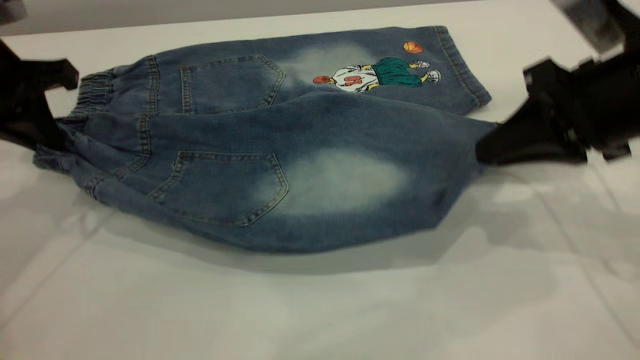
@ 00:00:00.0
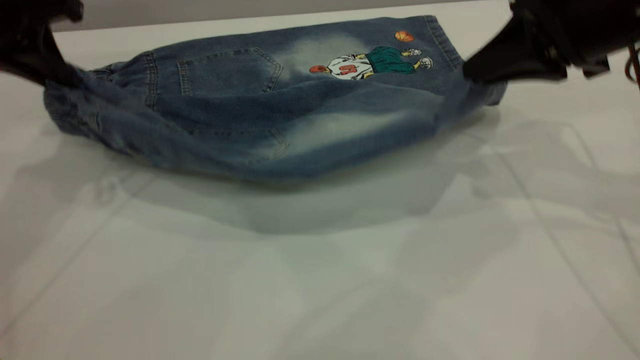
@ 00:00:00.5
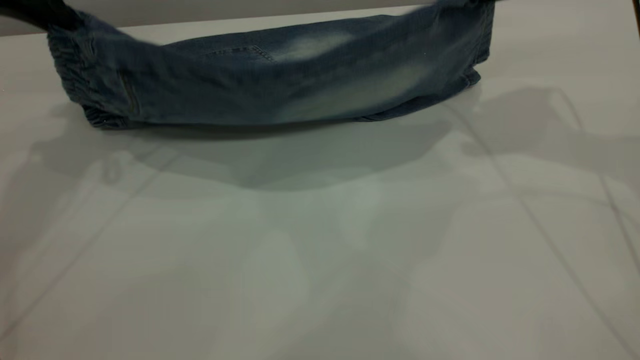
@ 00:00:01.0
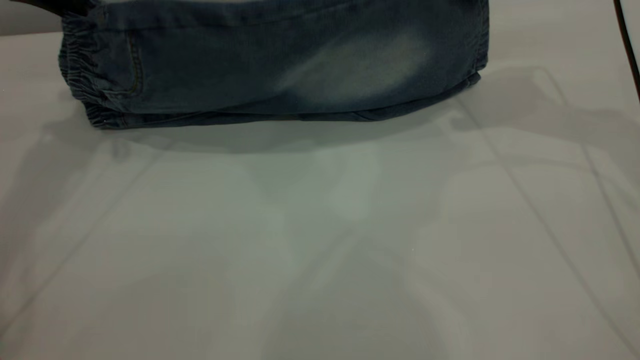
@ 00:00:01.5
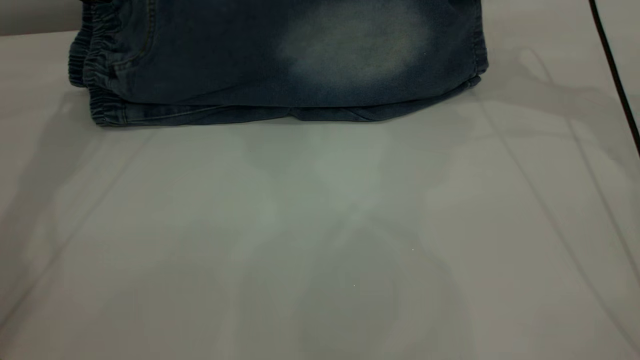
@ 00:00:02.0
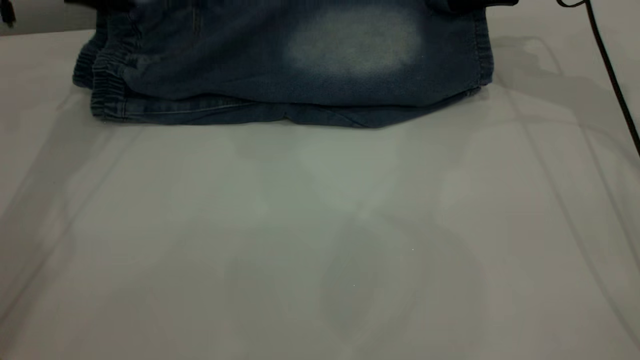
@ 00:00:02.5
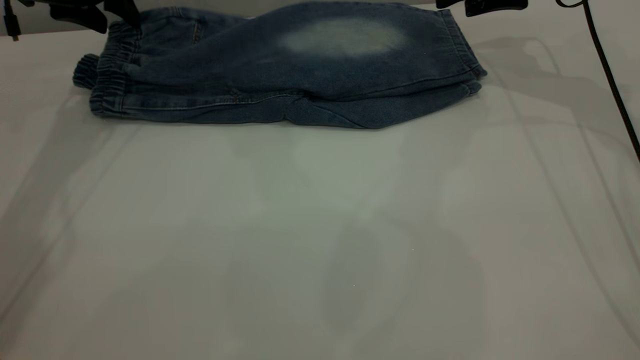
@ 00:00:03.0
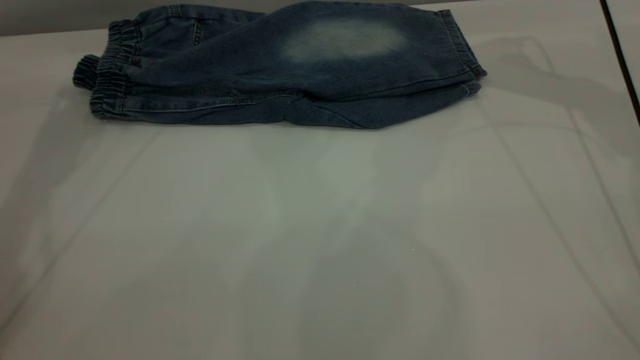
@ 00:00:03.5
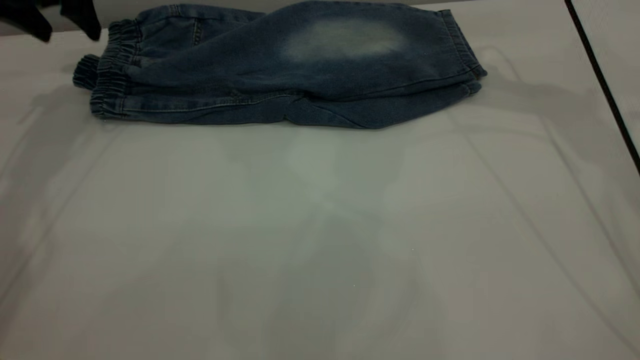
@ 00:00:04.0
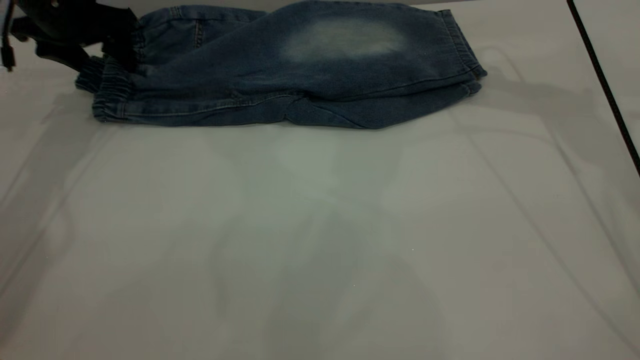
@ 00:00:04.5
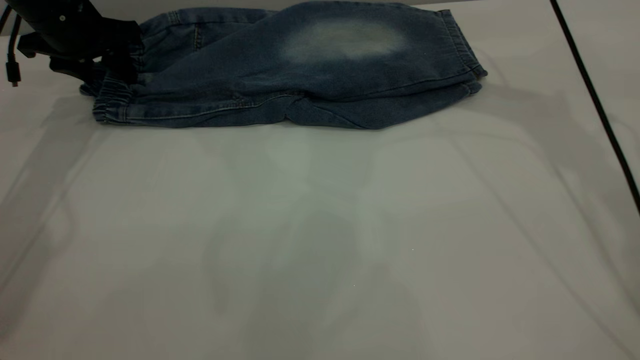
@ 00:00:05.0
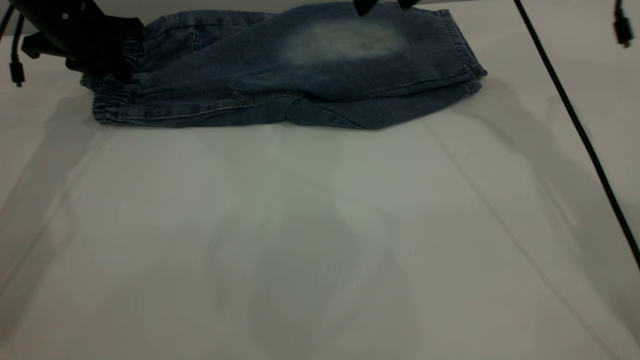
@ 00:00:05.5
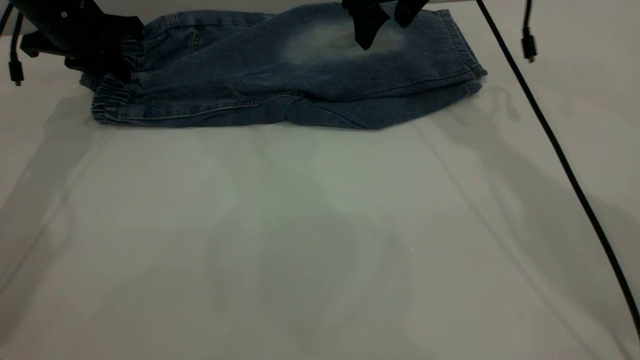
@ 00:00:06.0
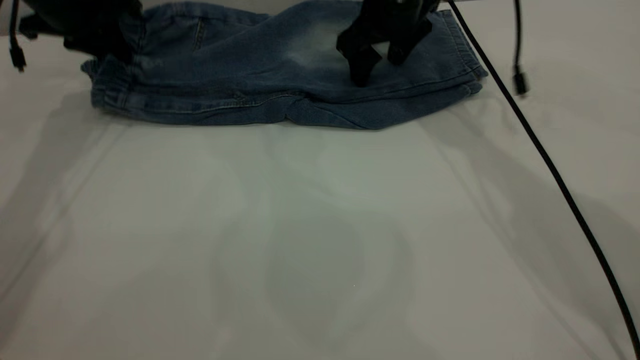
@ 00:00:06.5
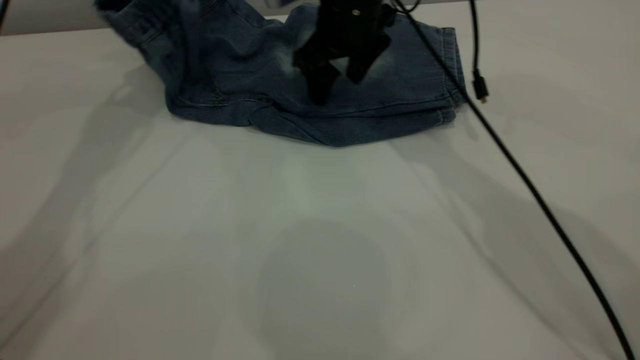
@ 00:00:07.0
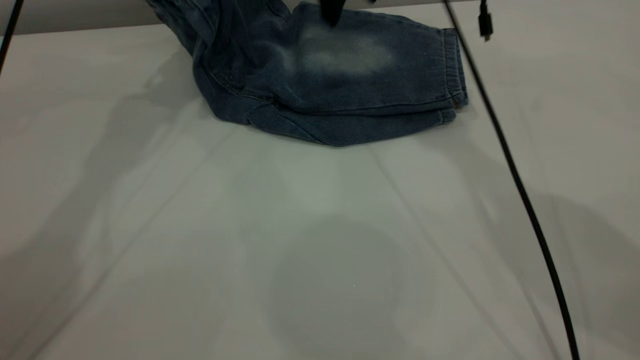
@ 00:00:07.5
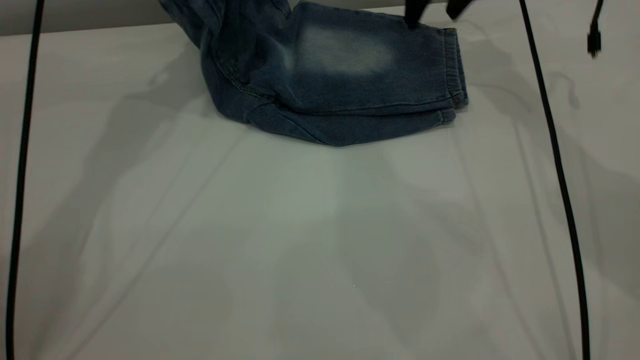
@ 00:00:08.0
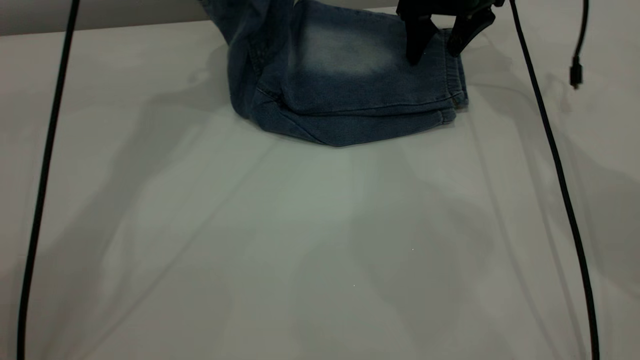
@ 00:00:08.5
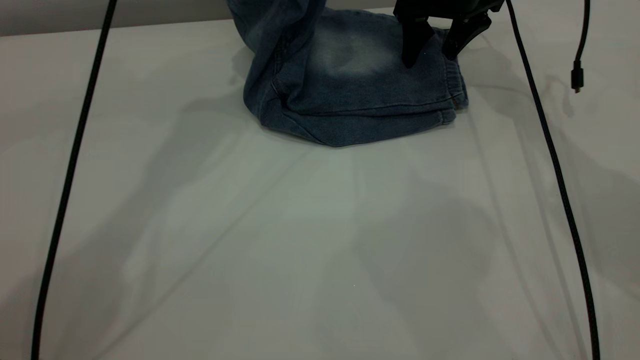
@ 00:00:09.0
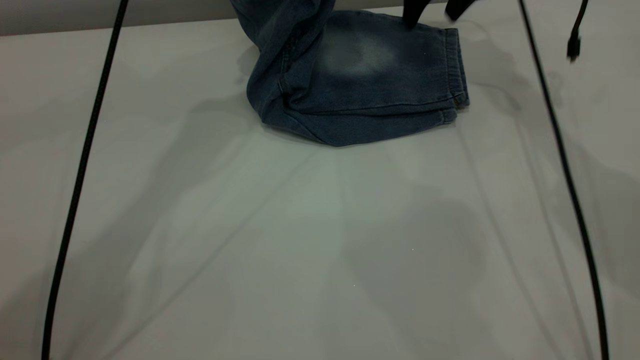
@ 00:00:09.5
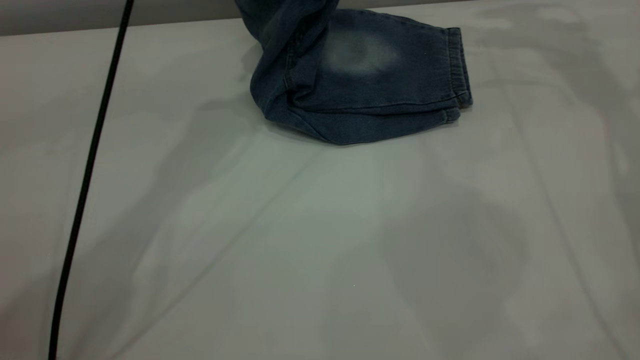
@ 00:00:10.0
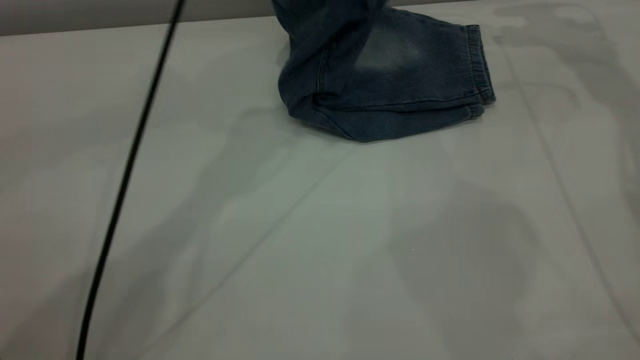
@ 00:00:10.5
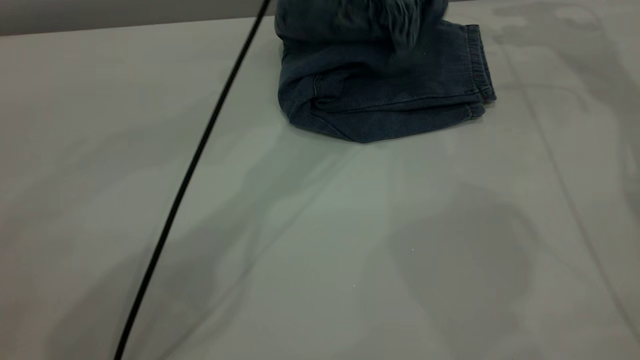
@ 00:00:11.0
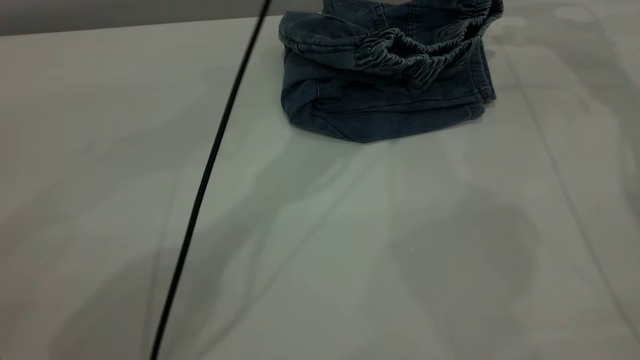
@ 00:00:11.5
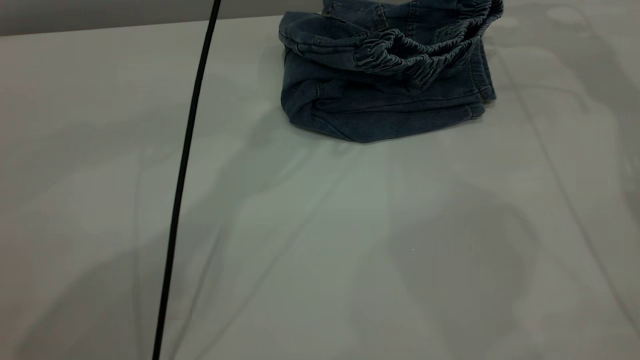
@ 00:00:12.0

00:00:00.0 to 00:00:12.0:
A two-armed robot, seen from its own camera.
Step, 00:00:00.0 to 00:00:03.5: Fold the bottom of the pants upward.
00:00:00.0 to 00:00:02.0: The two grippers go some 20 cm forward.
00:00:02.0 to 00:00:04.0: The right gripper opens up. The left gripper goes up and down, roughly 5 cm each way, reversing 2 times, and opens.
00:00:04.0 to 00:00:06.0: The left gripper goes roughly 5 cm downward, and closes. The right gripper heads to the left, covering roughly 10 cm.
00:00:06.0 to 00:00:08.0: The right gripper travels to the right by about 5 cm, while the left gripper heads upward and to the right, covering roughly 20 cm.
00:00:08.0 to 00:00:10.0: The right gripper is displaced to the right and upward by about 15 cm, while the left gripper is displaced to the right by approximately 10 cm.
00:00:10.0 to 00:00:12.0: The left gripper heads downward and to the right, covering approximately 10 cm, and opens up.

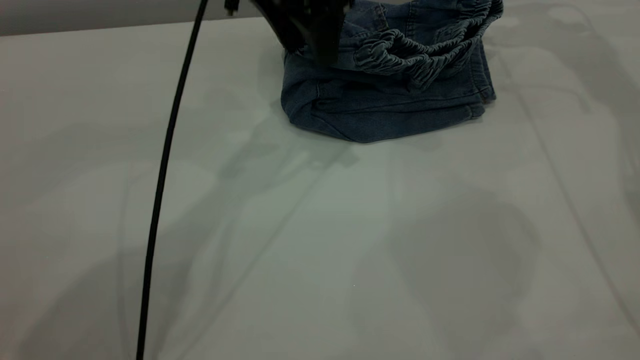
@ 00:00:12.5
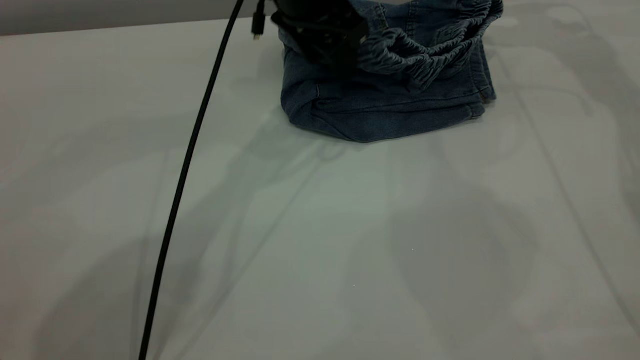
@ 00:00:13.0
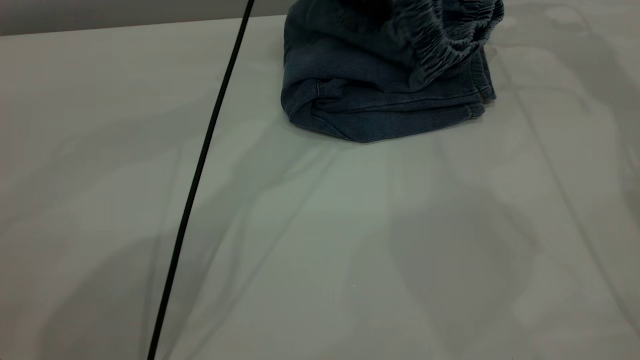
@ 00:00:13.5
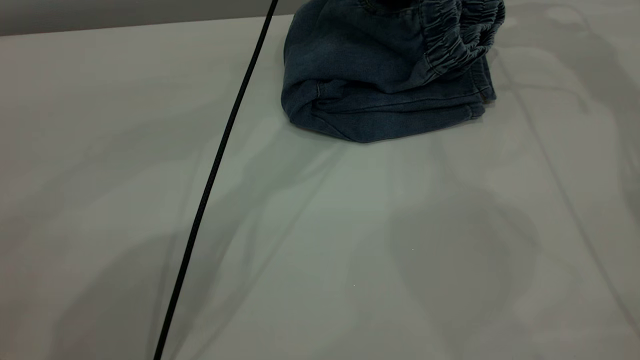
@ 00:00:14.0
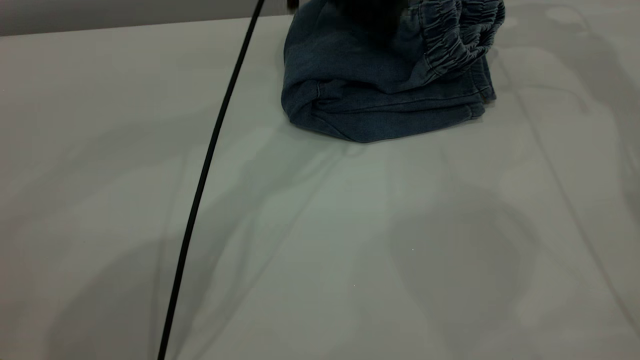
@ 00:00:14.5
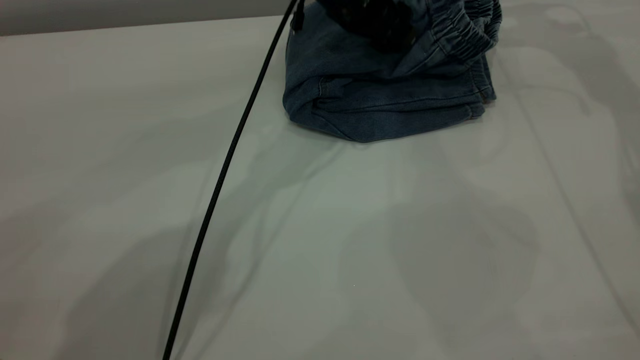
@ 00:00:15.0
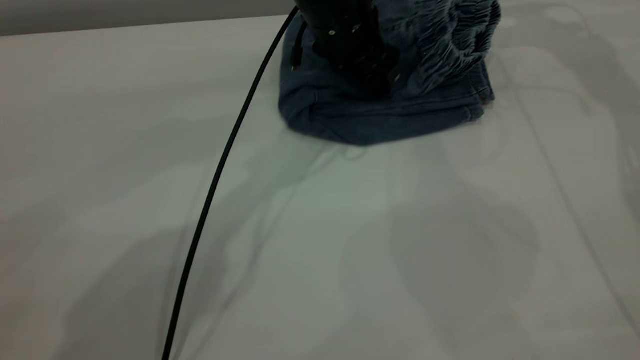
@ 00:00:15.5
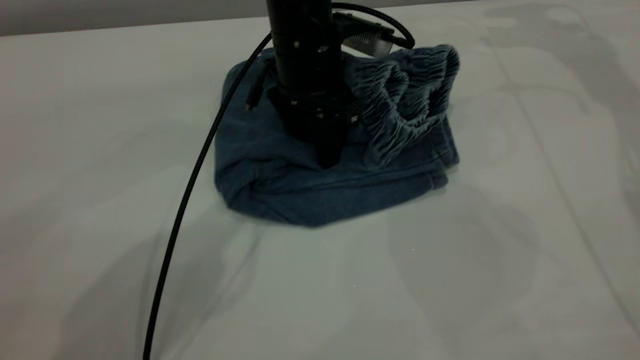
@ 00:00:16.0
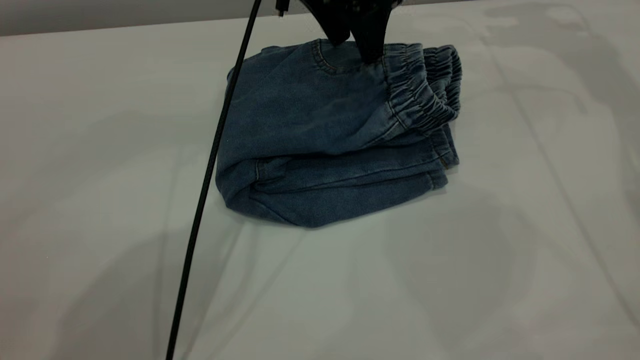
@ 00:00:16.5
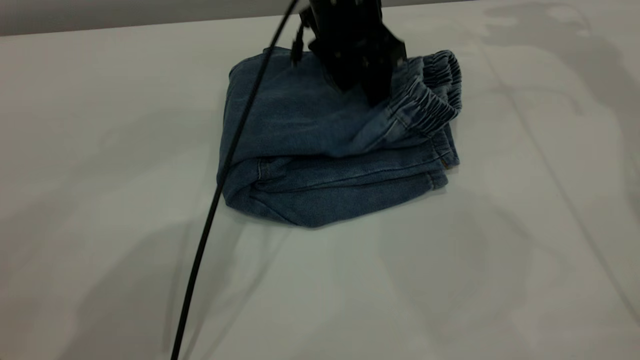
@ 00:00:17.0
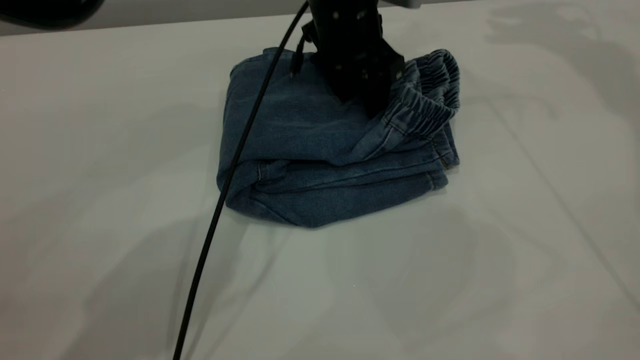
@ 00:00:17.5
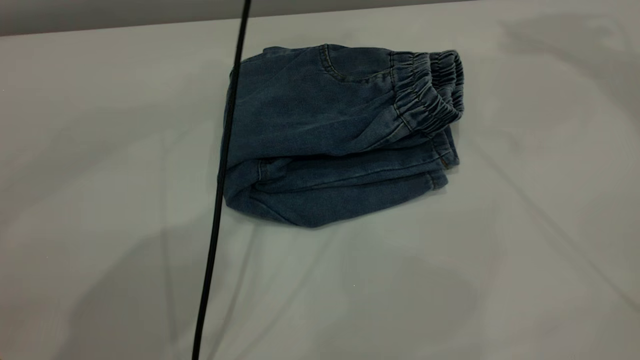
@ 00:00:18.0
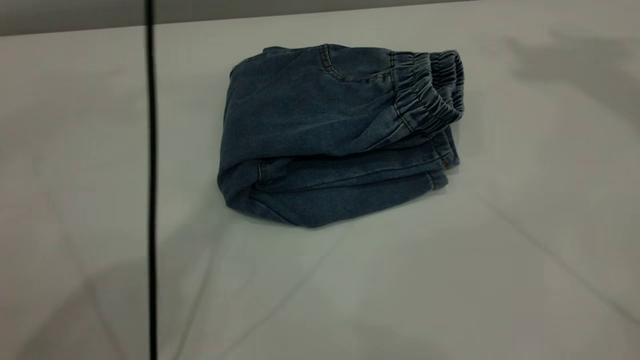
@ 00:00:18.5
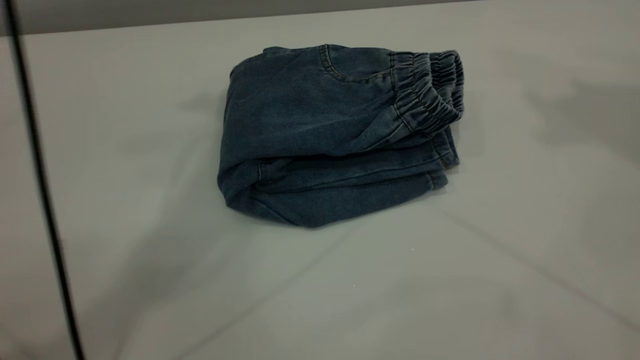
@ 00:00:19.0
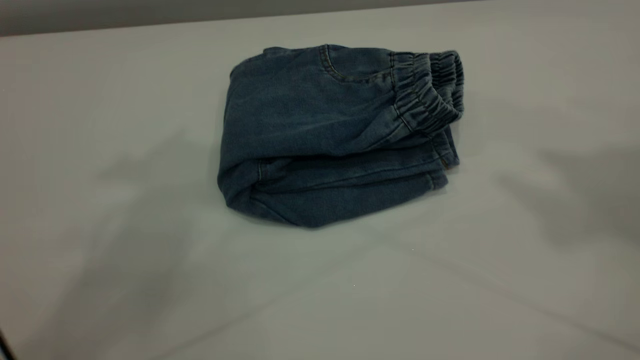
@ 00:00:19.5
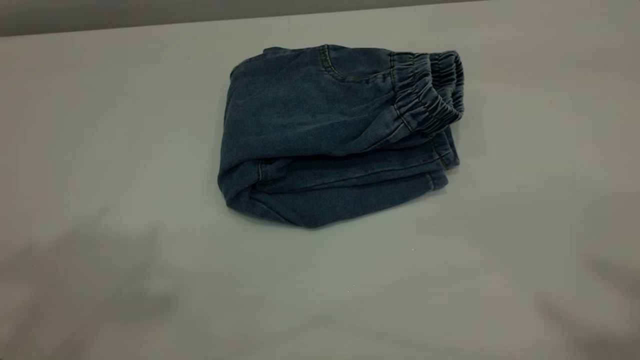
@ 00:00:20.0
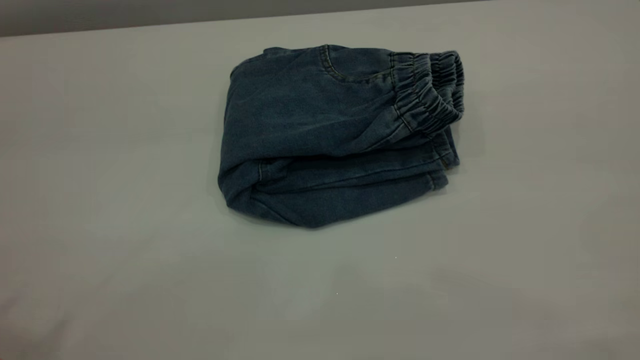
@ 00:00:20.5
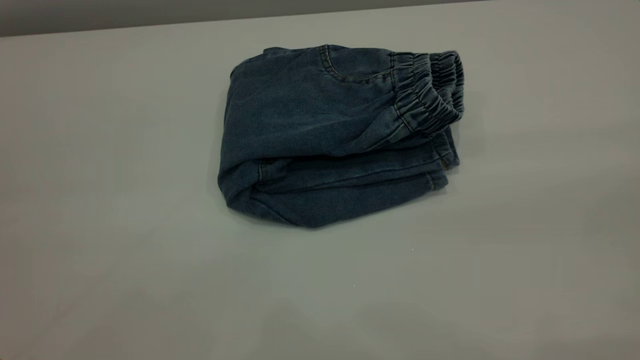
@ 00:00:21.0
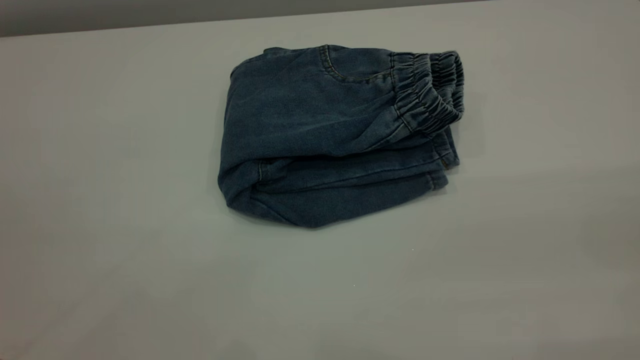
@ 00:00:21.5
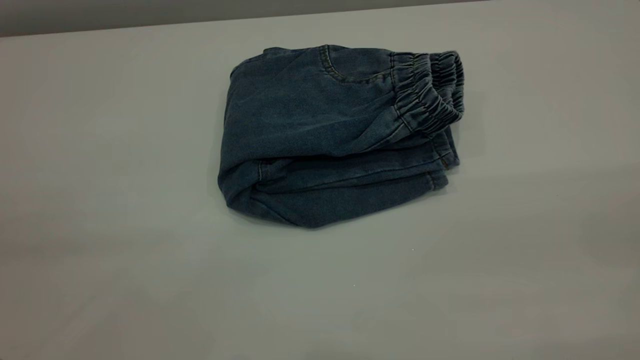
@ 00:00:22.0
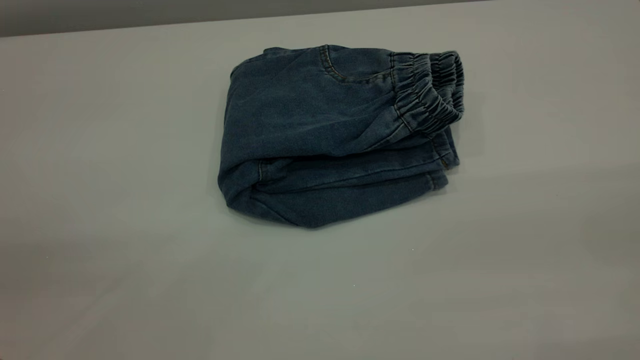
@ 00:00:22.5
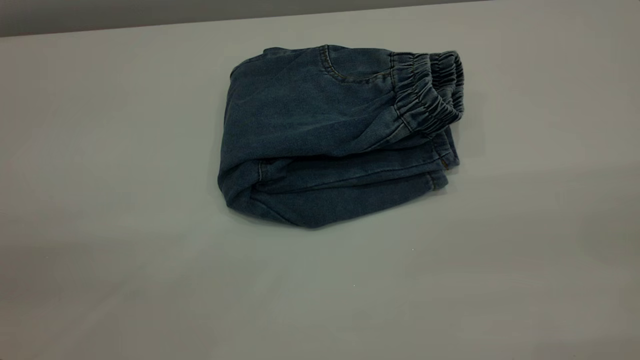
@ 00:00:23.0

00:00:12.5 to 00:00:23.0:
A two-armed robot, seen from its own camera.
00:00:12.5 to 00:00:14.5: The left gripper moves approximately 5 cm.
00:00:16.5 to 00:00:19.0: The left gripper is displaced upward by roughly 30 cm, while the right gripper goes approximately 35 cm upward and backward.
00:00:19.0 to 00:00:21.0: The left gripper is displaced backward and to the left by about 35 cm.
